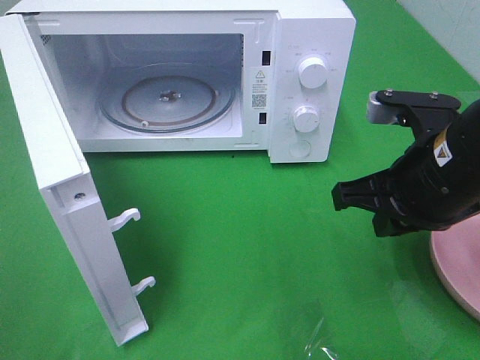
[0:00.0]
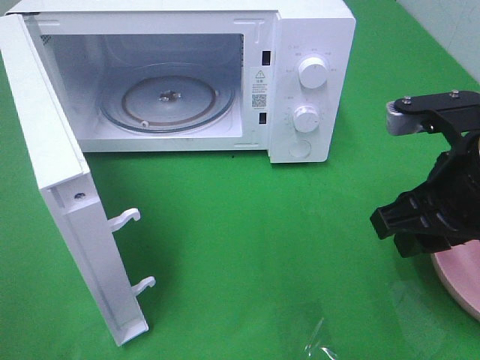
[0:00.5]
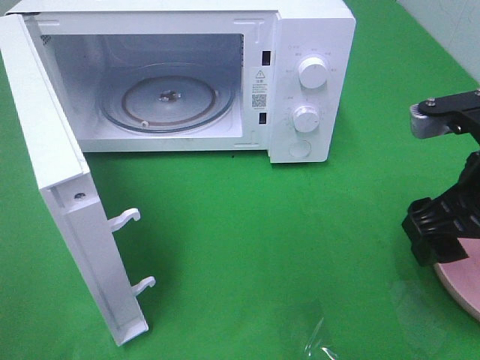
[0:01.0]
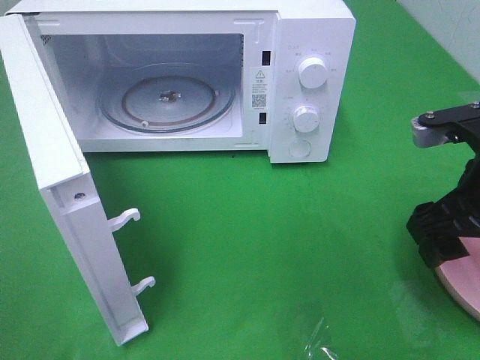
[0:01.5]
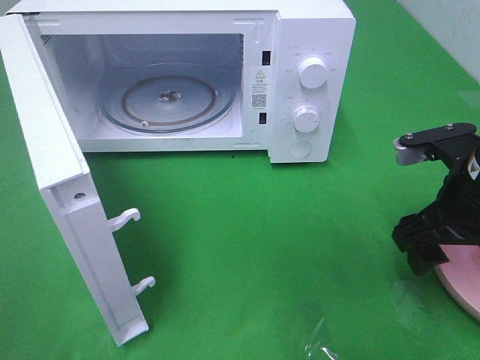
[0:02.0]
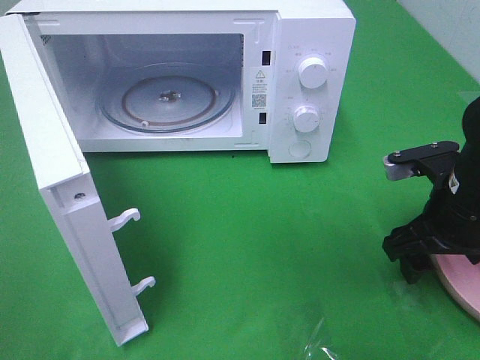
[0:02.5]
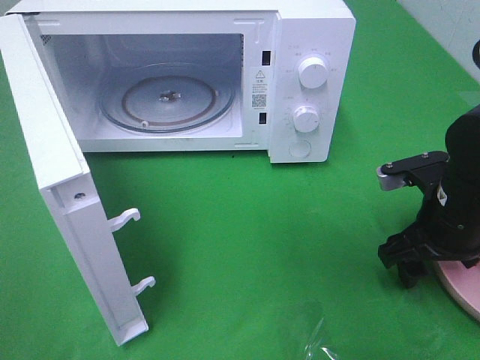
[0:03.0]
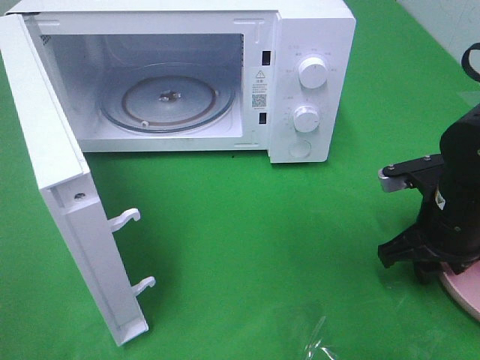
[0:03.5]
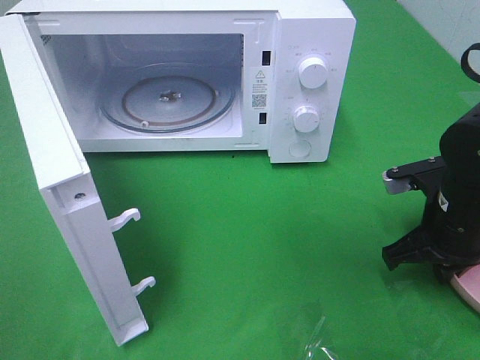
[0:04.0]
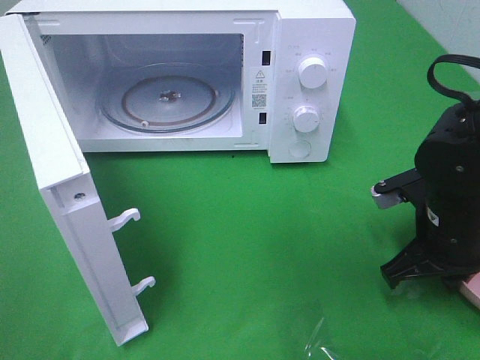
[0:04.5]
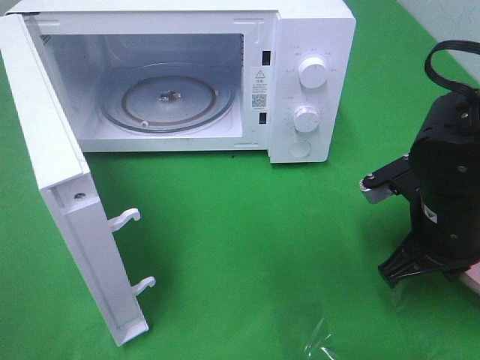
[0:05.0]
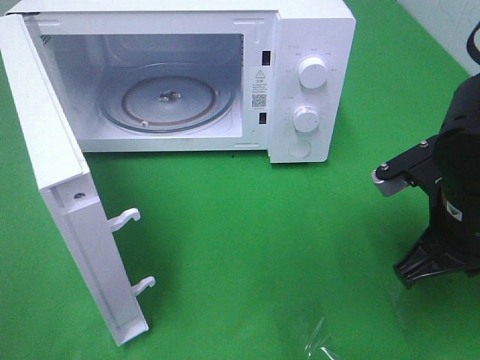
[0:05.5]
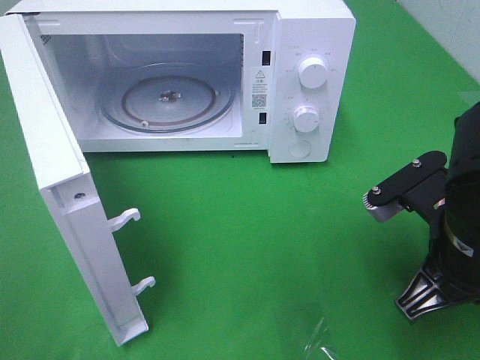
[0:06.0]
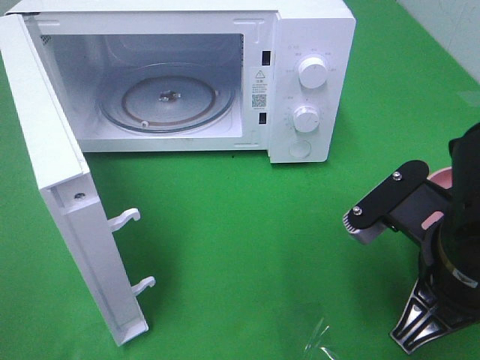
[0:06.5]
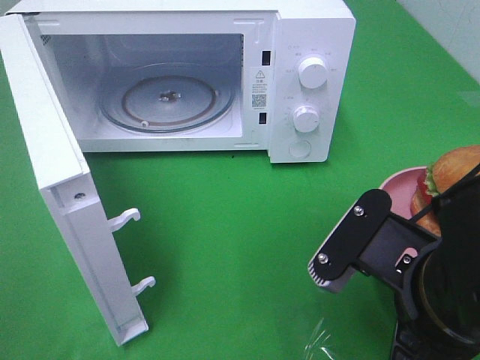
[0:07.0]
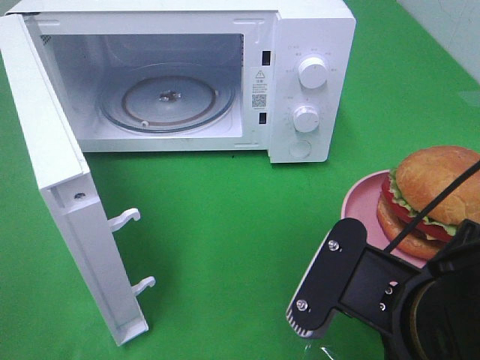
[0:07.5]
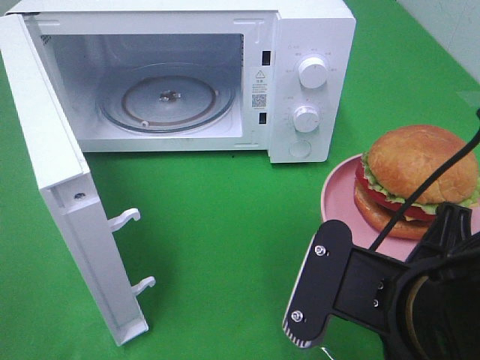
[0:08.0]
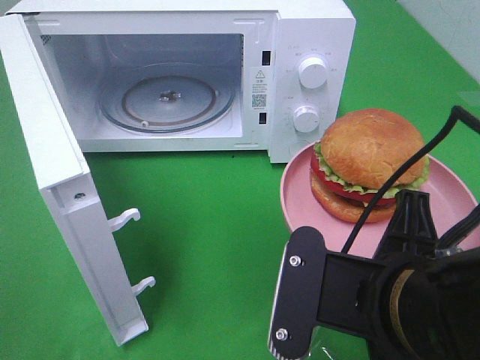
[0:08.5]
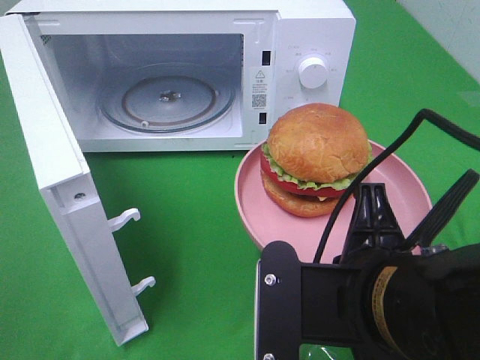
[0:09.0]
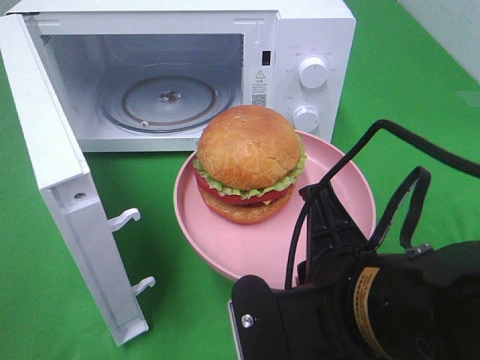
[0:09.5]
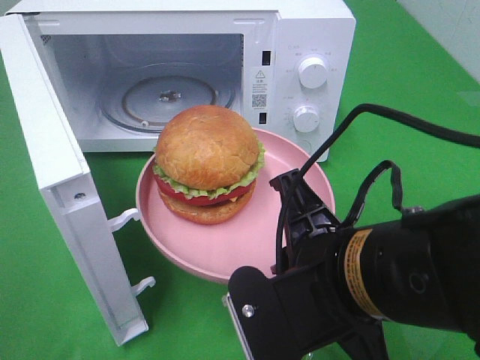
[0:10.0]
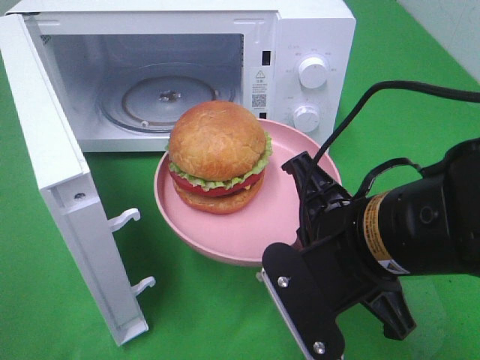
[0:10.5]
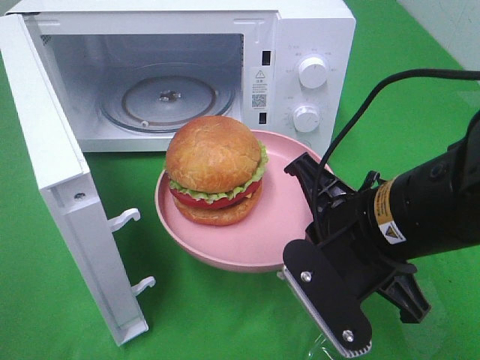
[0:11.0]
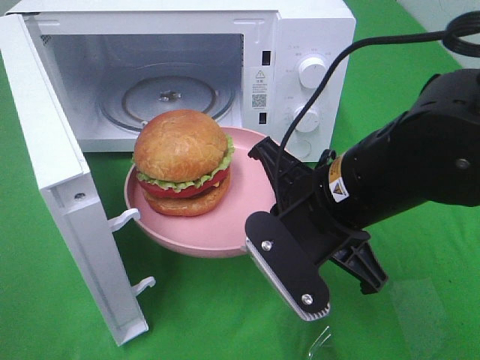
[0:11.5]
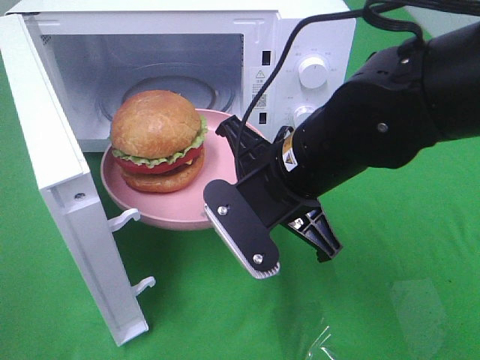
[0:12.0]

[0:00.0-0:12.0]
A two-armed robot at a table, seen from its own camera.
Task of the whole recording: Heat the burger.
Step, 0:00.0 to 0:04.0: Right hand: grab the plate with the hamburger.
0:00.0 to 0:02.0: The right gripper moves to the right, roughly 5 cm, and opens its fingers.
0:02.0 to 0:04.0: The right gripper shifts roughly 5 cm downward, and closes.
0:04.0 to 0:06.0: The right gripper heads backward, upward and to the left, covering about 10 cm.
0:06.0 to 0:08.0: The right gripper moves backward and to the left, about 10 cm.
0:10.0 to 0:12.0: The right gripper is displaced forward by about 10 cm.

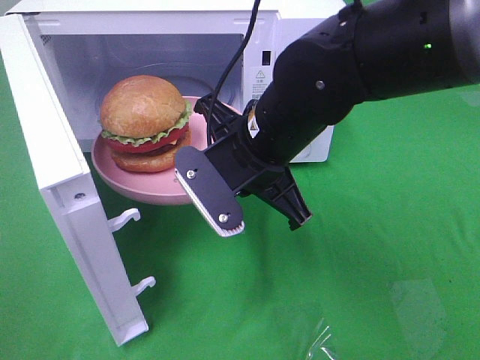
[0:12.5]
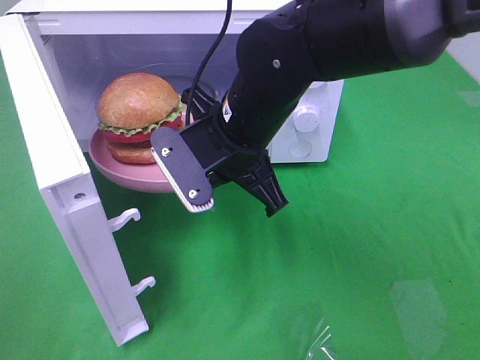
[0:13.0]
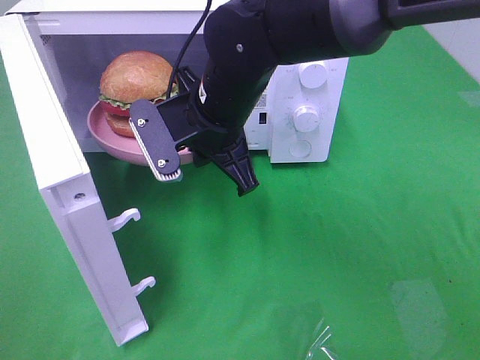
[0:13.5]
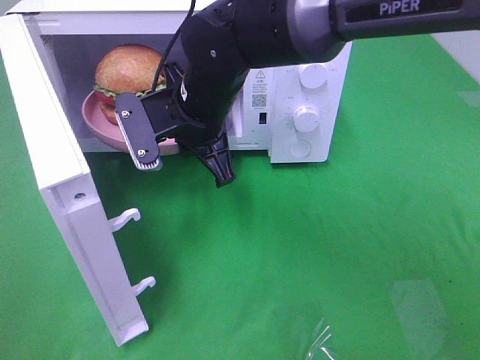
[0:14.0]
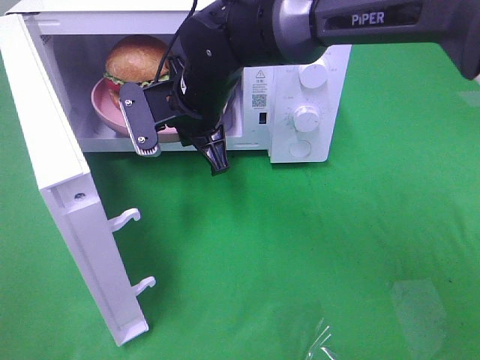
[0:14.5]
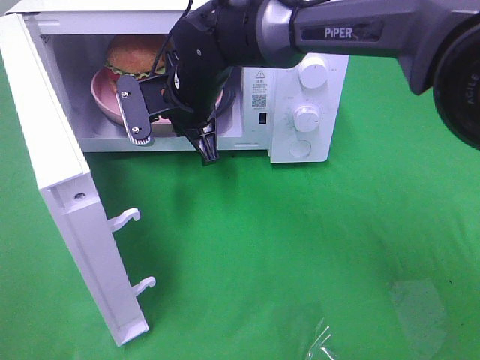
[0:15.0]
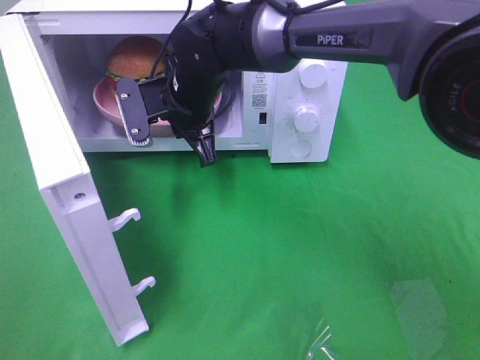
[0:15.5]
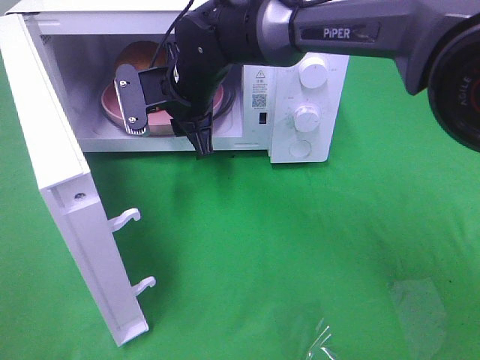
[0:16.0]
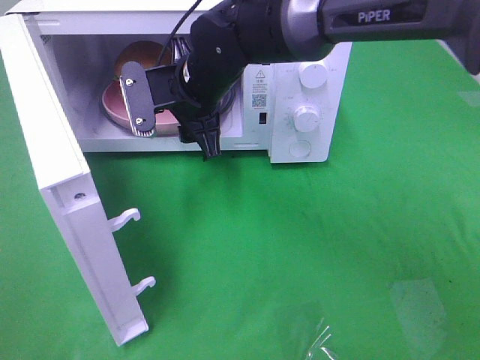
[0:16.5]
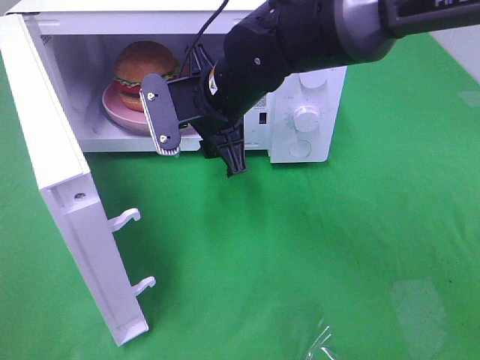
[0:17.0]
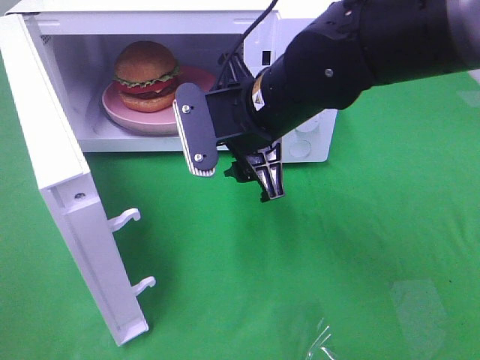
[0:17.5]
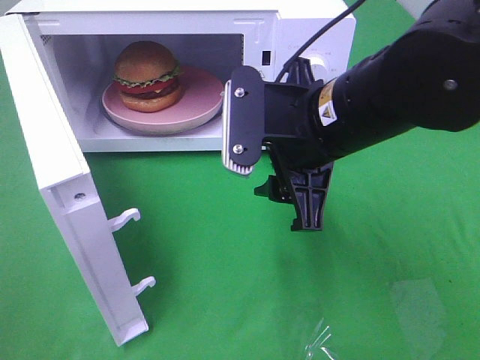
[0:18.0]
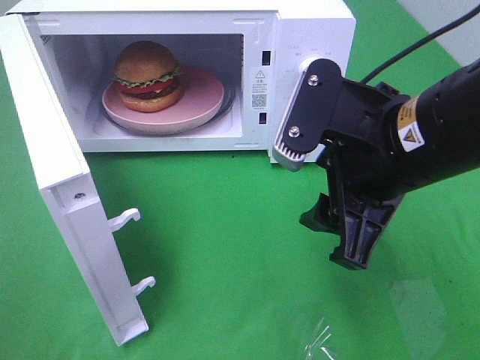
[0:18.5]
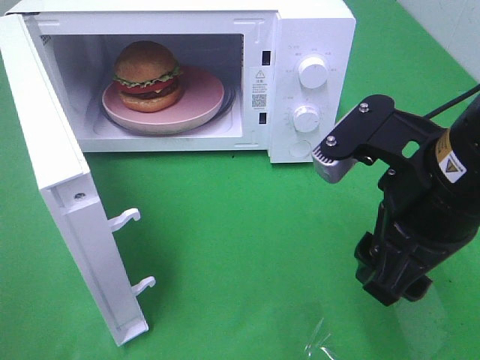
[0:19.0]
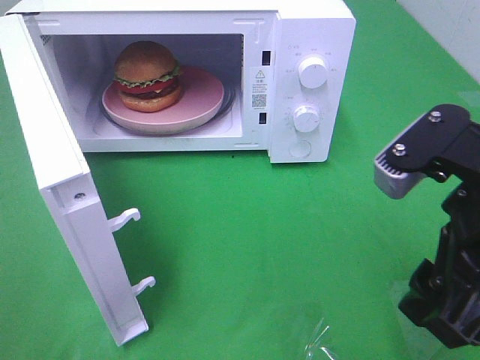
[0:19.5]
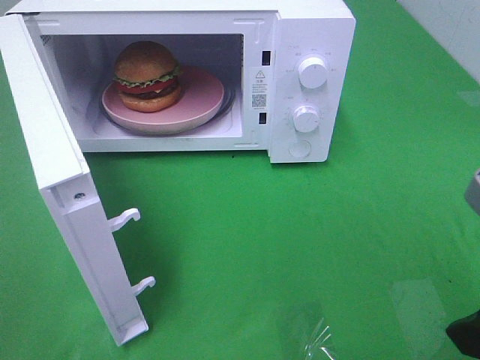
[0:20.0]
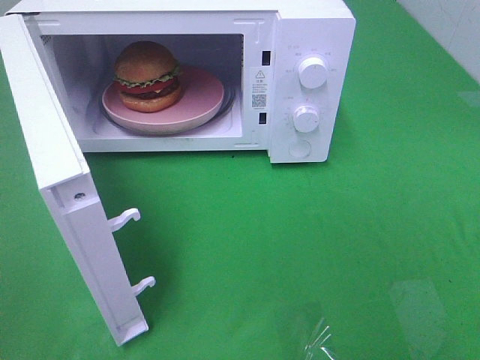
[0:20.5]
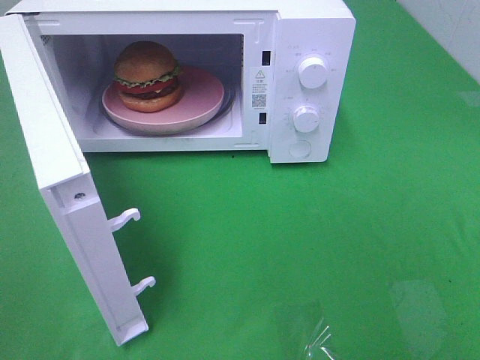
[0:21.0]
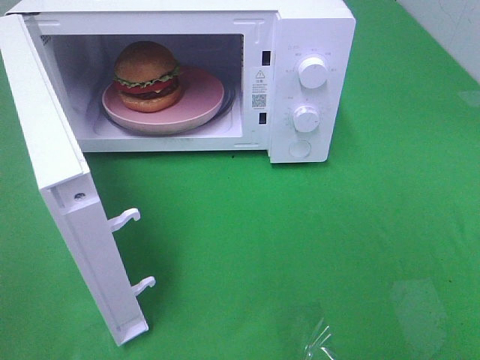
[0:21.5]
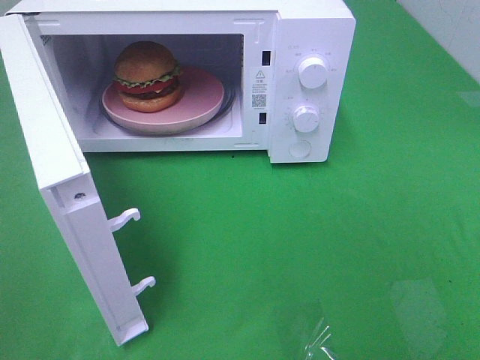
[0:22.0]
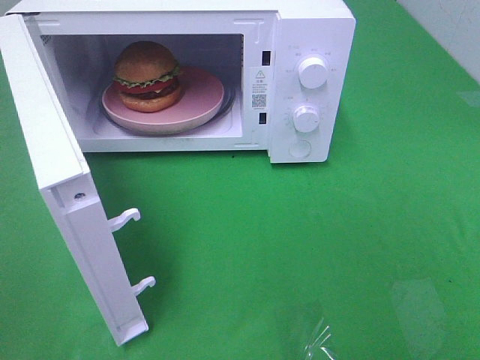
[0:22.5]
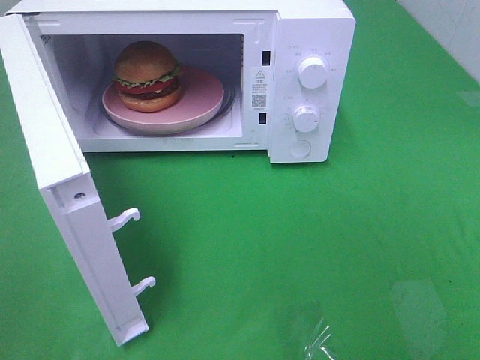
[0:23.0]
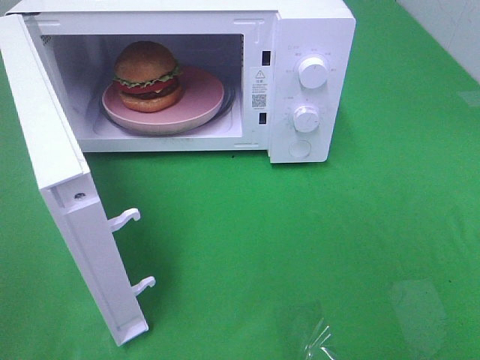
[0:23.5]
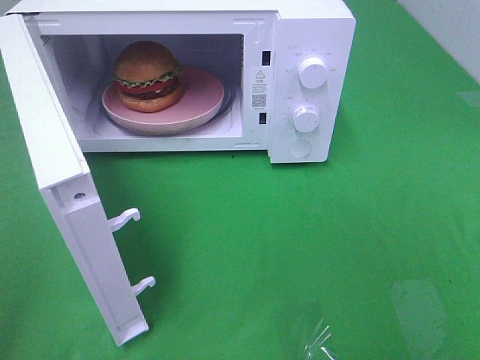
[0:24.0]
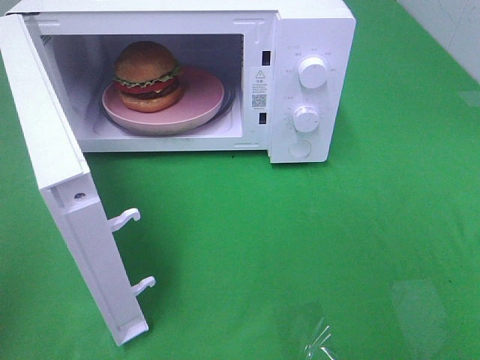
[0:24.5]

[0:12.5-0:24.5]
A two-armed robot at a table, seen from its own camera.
Task of the whole recording: Heat the burger.
Step, 0:12.5 to 0:16.5: Right hand: place the plate in the microwave.
0:12.5 to 0:14.5: The right gripper moves forward and to the left, approximately 10 cm.
0:14.5 to 0:16.5: The right gripper opens its fingers.
0:16.5 to 0:18.5: The right gripper moves backward and to the right, approximately 25 cm.
0:18.5 to 0:20.5: The right gripper shifts some 20 cm to the right and backward.

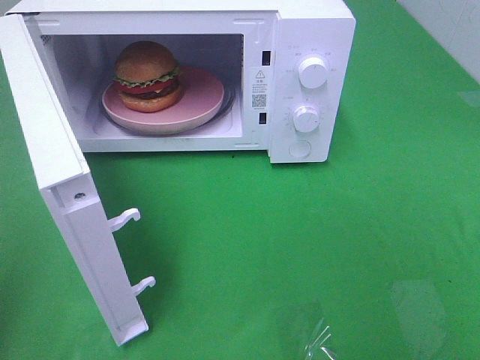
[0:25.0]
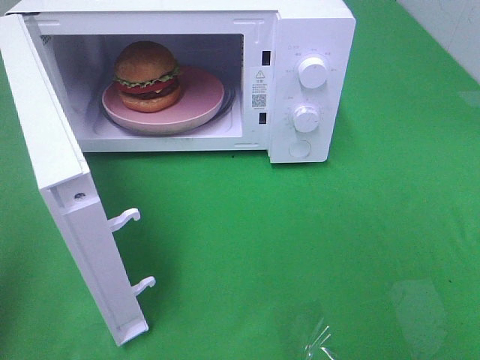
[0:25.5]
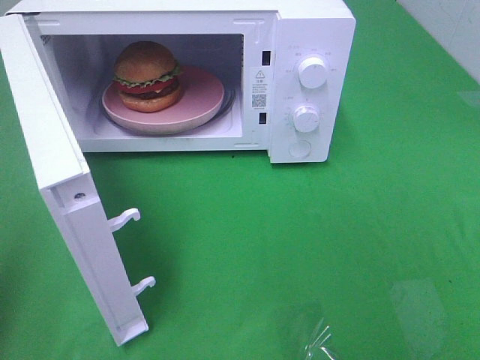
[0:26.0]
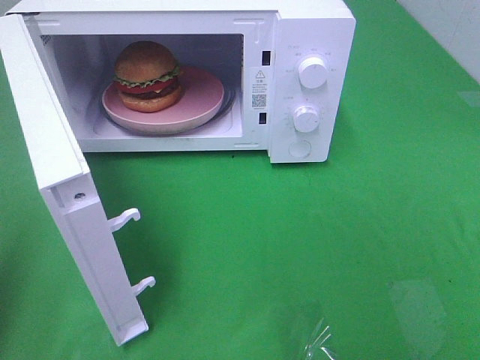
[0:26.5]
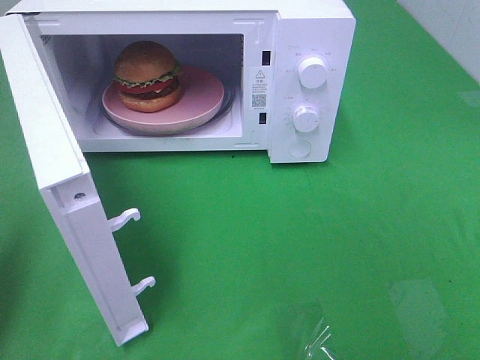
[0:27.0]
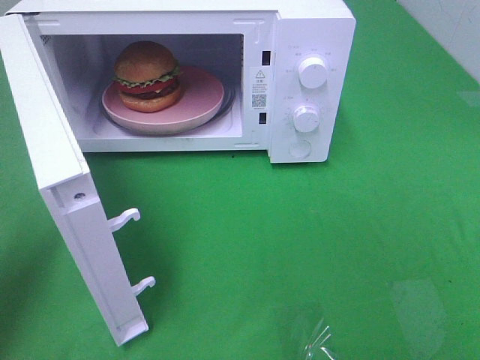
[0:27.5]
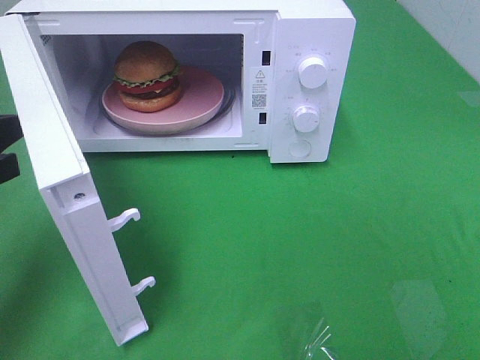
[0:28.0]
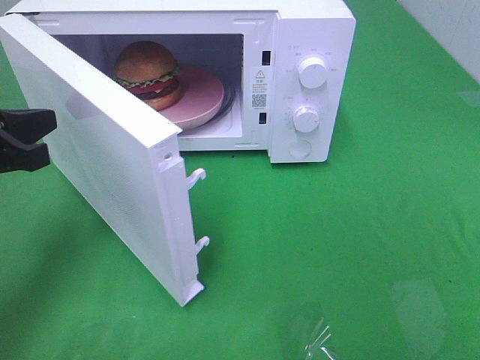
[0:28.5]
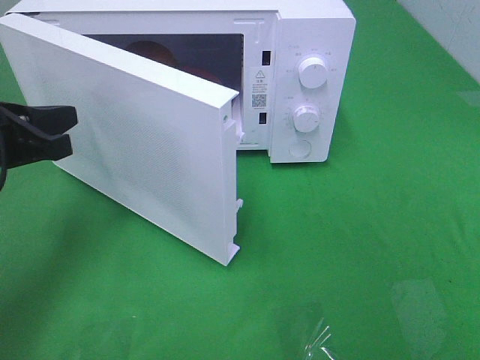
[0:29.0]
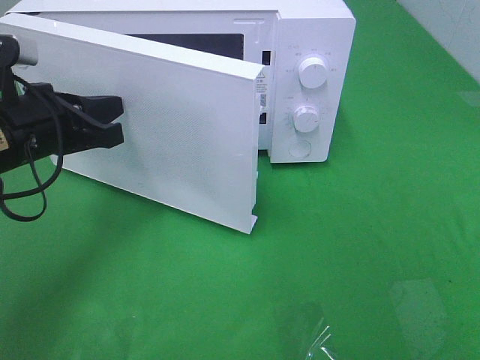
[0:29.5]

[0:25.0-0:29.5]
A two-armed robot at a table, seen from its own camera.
Task of the whole recording: Heat the burger.
0:27.0 to 0:29.5: The left gripper moves to the right, forward and downward, about 20 cm.
